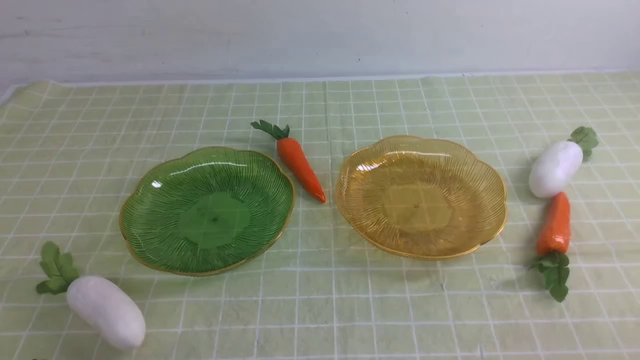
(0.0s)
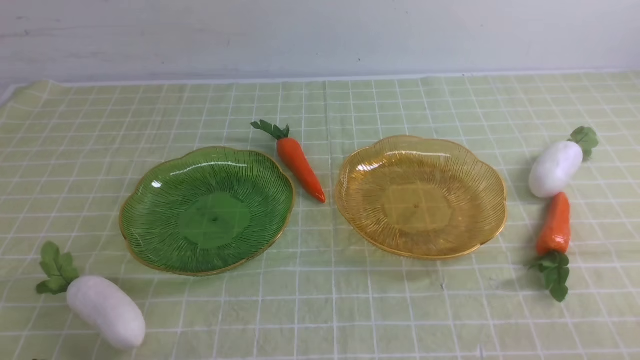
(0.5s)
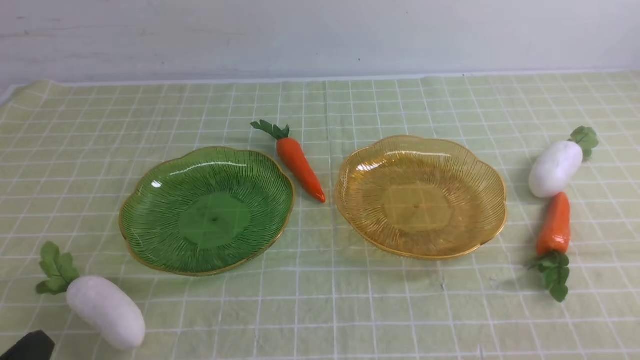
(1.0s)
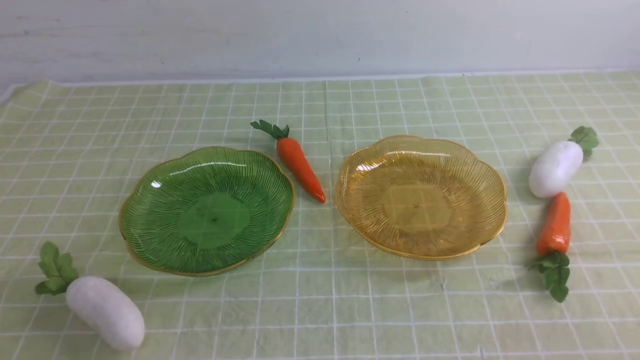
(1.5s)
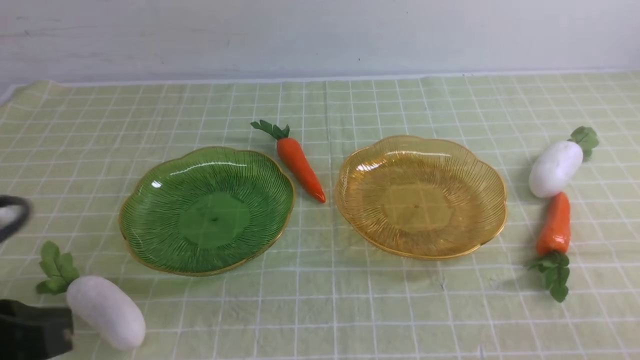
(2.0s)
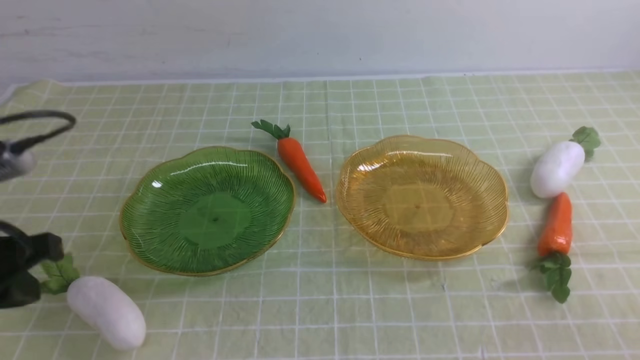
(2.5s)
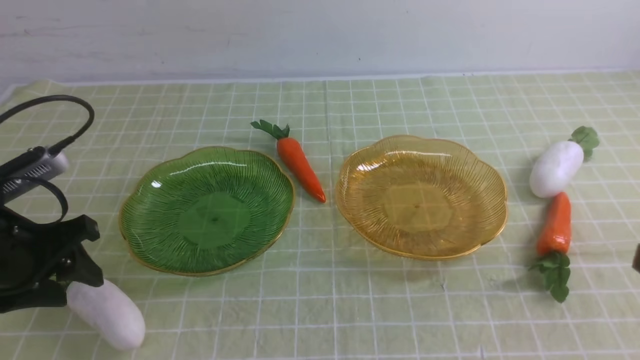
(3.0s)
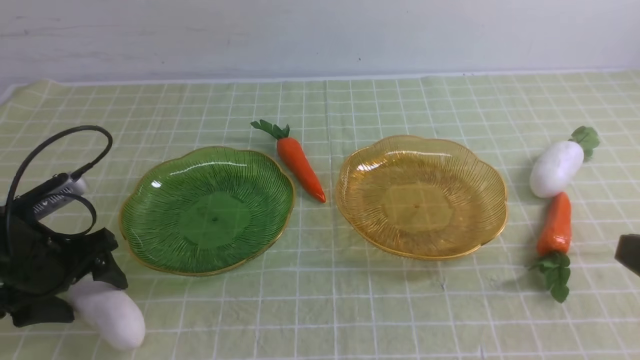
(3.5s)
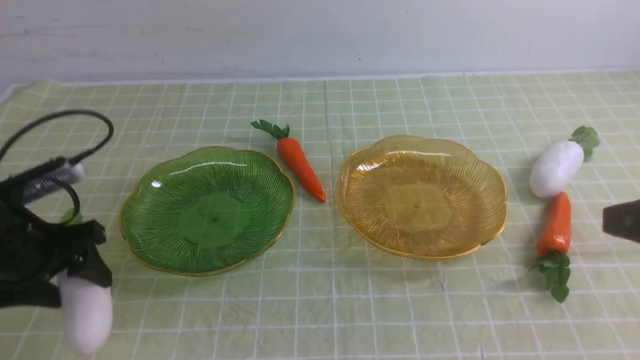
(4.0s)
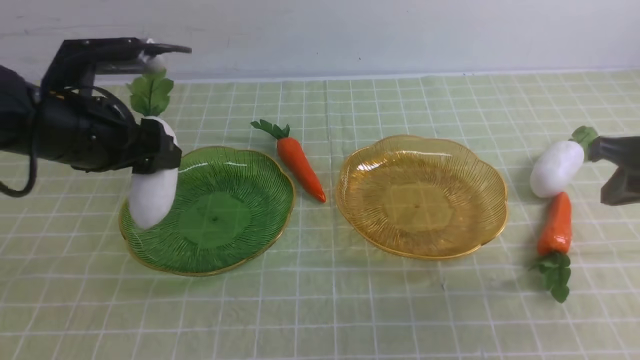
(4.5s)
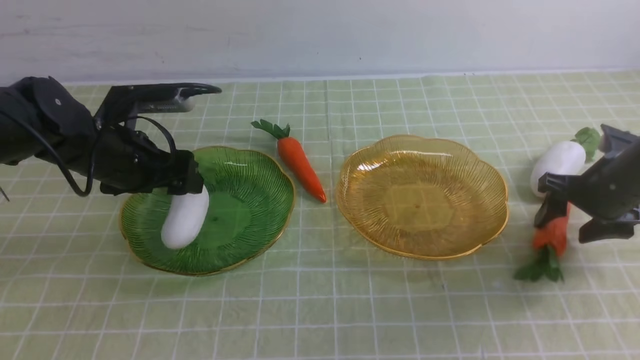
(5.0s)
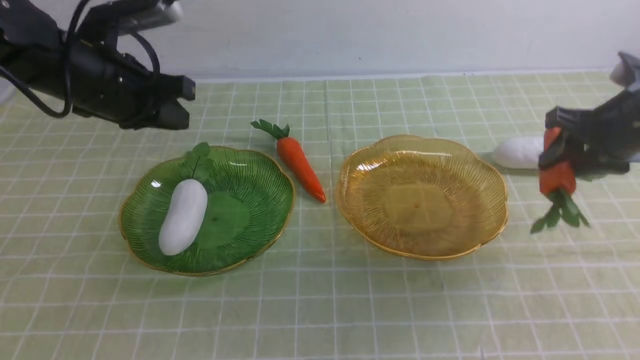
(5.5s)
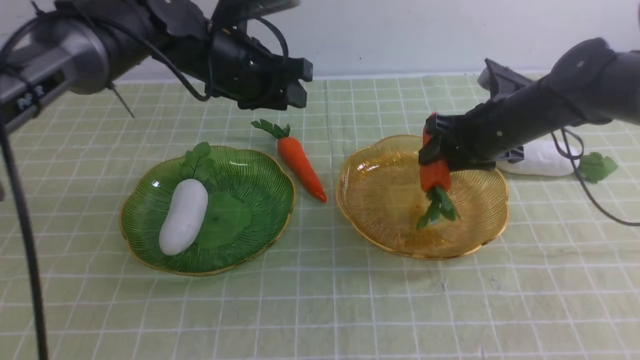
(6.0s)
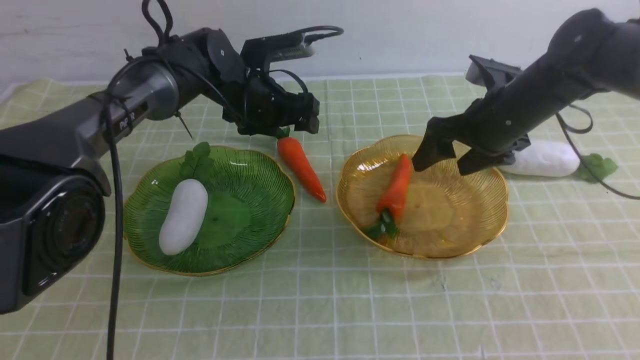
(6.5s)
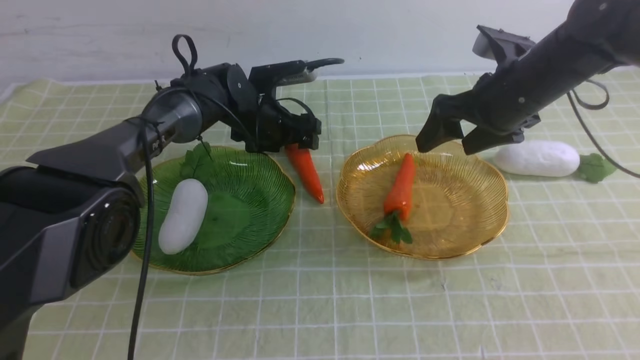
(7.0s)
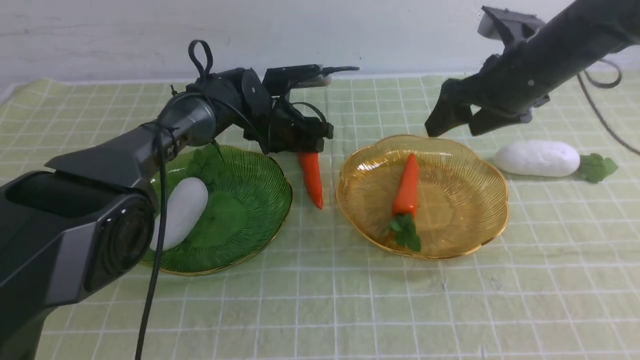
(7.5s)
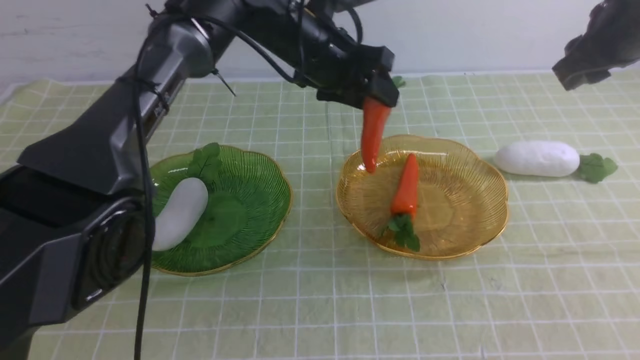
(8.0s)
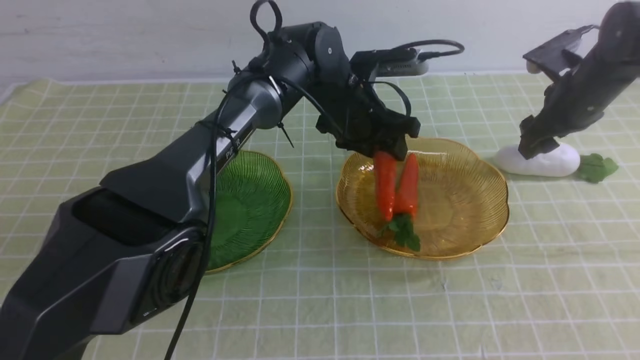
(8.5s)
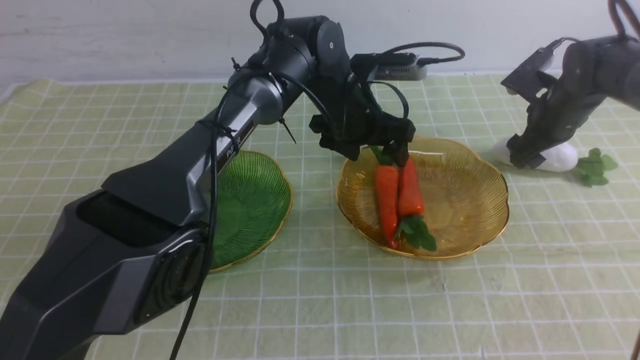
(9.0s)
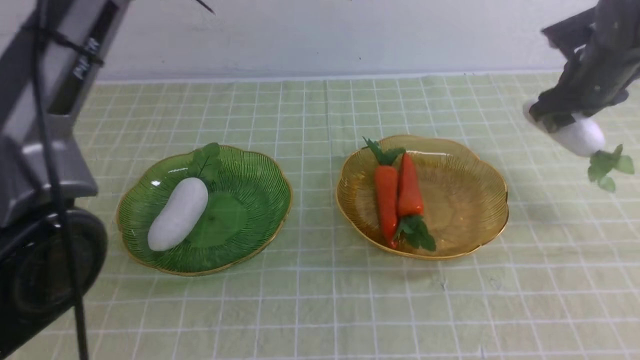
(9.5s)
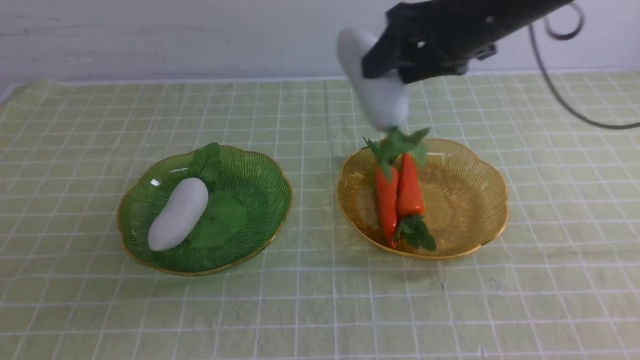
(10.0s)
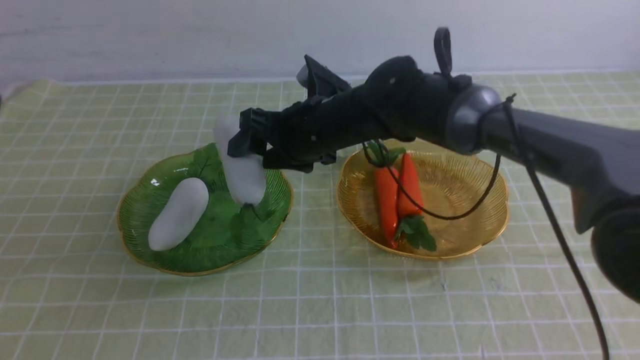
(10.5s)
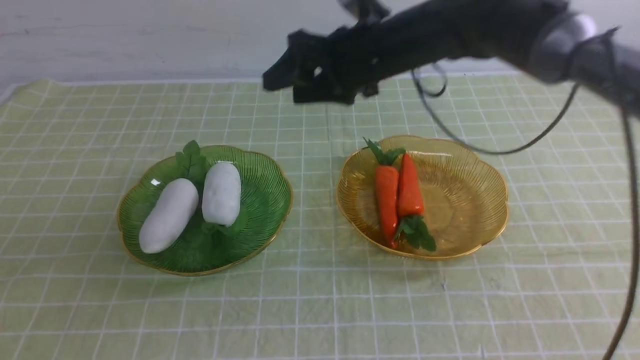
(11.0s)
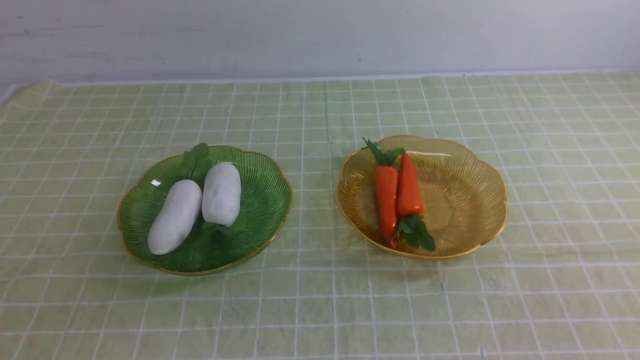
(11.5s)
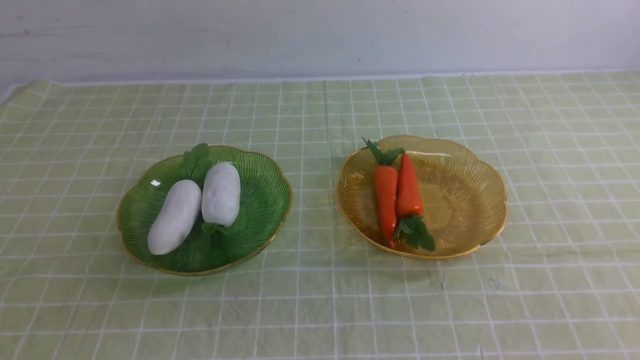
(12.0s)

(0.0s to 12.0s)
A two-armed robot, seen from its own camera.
Step, 0.0s - 5.0s: use the left arm to grab a radish and put it into the left plate.
Step, 5.5s - 6.5s: use the right arm to grab a carrot and put it into the right plate.
Step, 7.0s - 9.0s: use the left arm to grab a radish and put it into the right plate.
Step, 10.0s - 11.5s: use the right arm to grab a carrot and put it into the left plate.
0.0s - 2.0s: The left gripper travels upward and forward by roughly 15 cm.
2.0s - 4.0s: The left gripper shifts approximately 20 cm forward and downward, and opens its fingers.
4.0s - 6.0s: The left gripper moves to the right and forward, about 25 cm. Meanwhile the right gripper is displaced forward and downward by approximately 25 cm, and opens its fingers.
6.0s - 8.0s: The left gripper is displaced to the right by about 10 cm, reaches about 10 cm downward, then returns, and opens, then closes again. The right gripper goes roughly 15 cm upward and to the right, and opens, then closes once more.
8.0s - 10.0s: The left gripper moves upward, backward and to the left, about 35 cm, and closes; the right gripper goes approximately 20 cm to the left.
10.0s - 12.0s: The right gripper moves backward and to the right, some 35 cm, and closes its fingers; the left gripper shifts about 25 cm backward, downward and to the left.

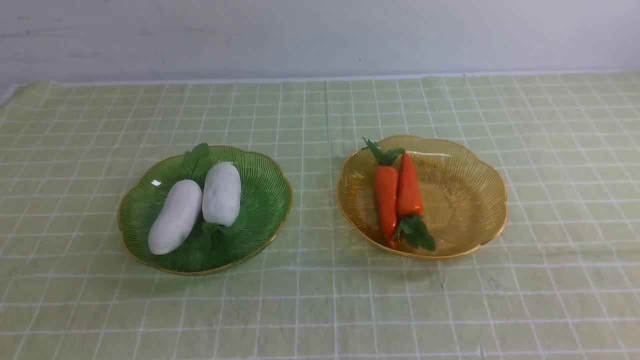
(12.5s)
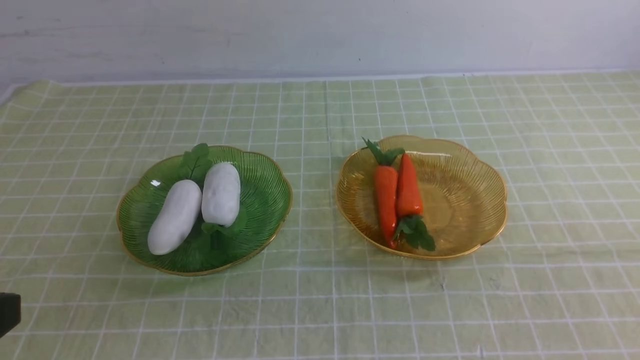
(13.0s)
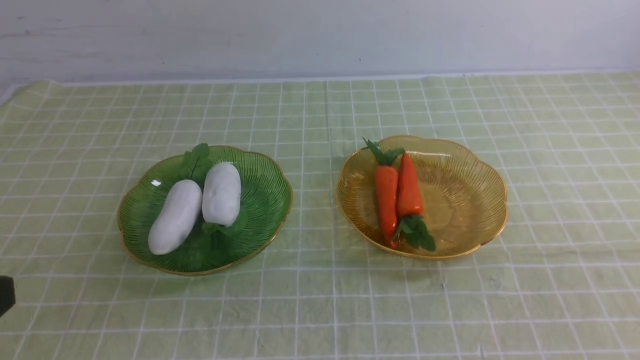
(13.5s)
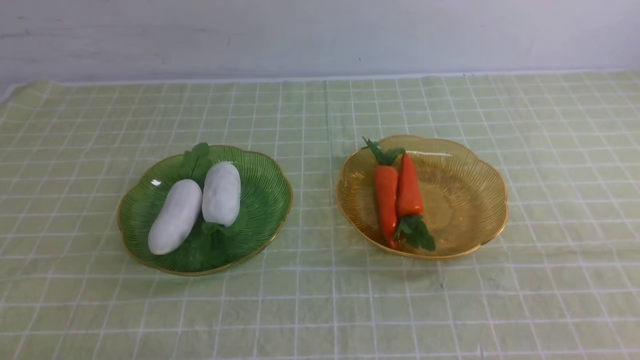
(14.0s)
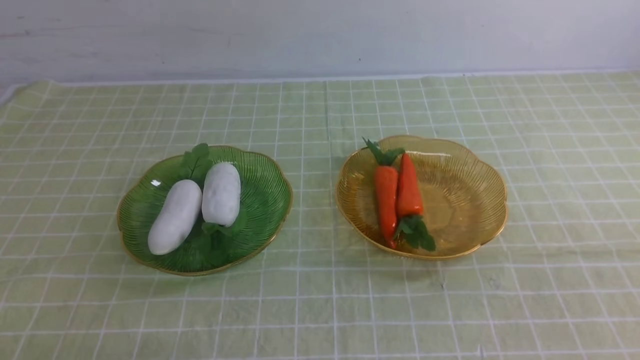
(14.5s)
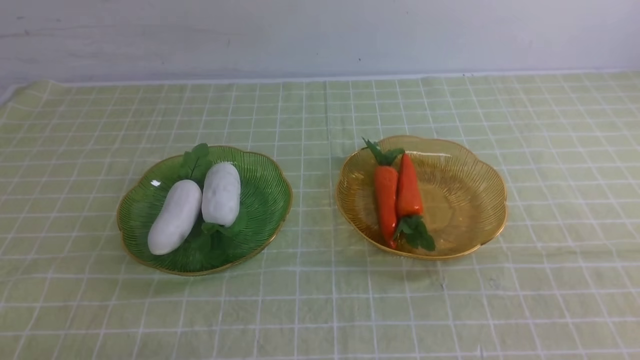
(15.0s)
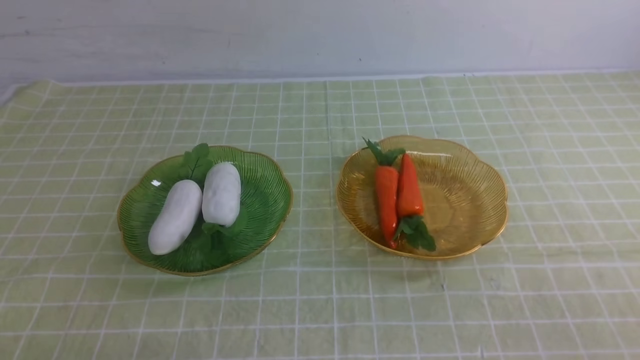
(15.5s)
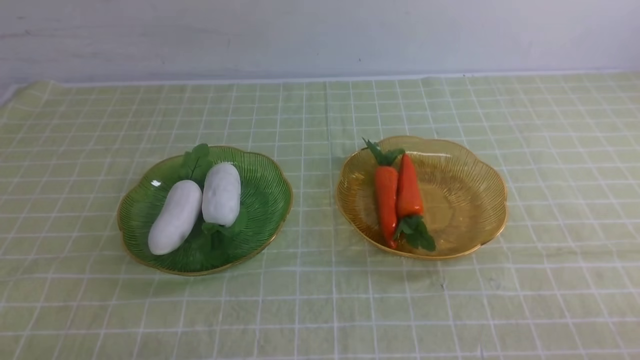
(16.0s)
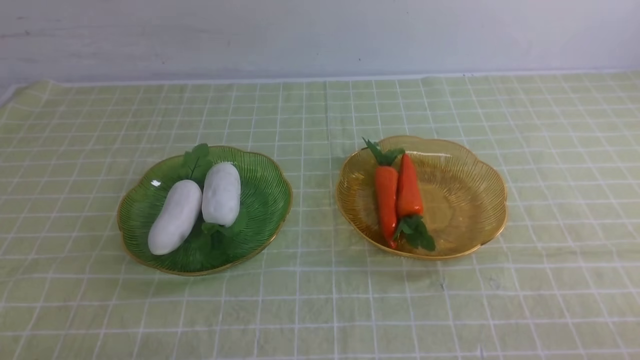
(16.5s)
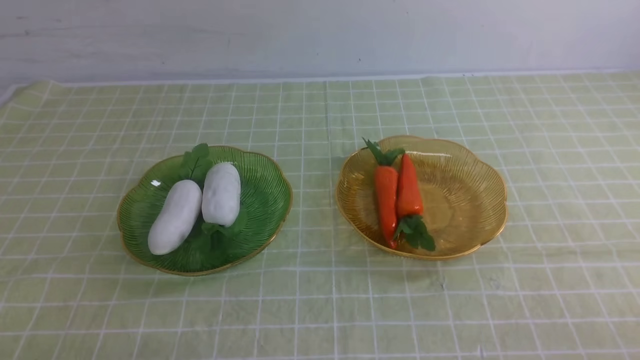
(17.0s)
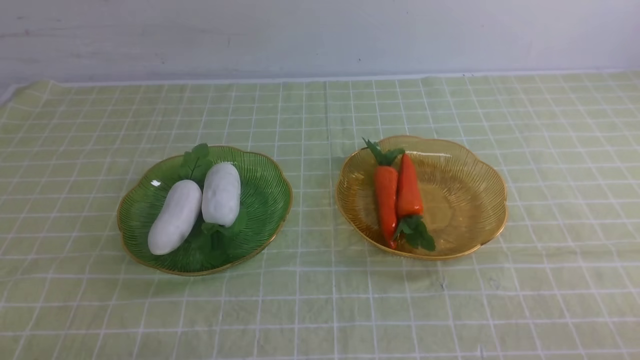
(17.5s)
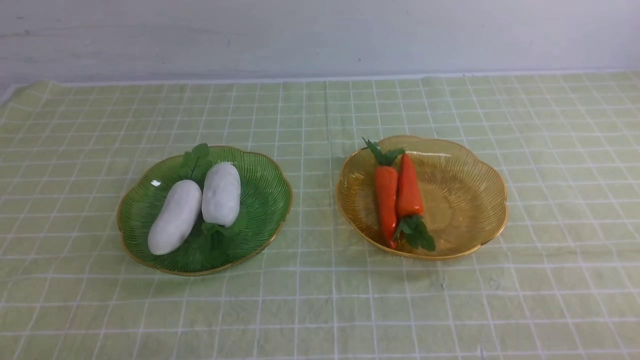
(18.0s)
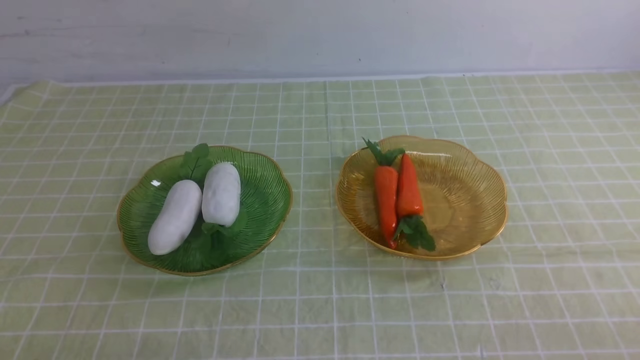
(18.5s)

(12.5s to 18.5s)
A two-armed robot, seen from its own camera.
16.5s - 18.5s: Neither gripper changes place.
